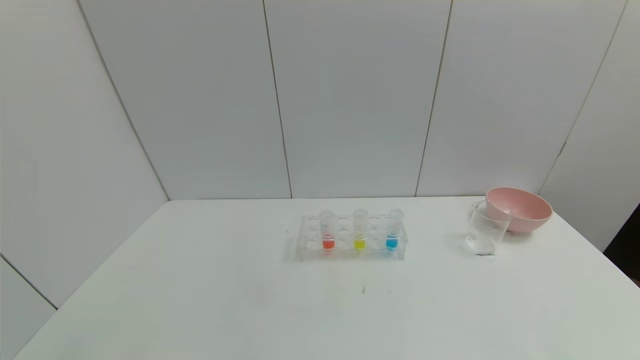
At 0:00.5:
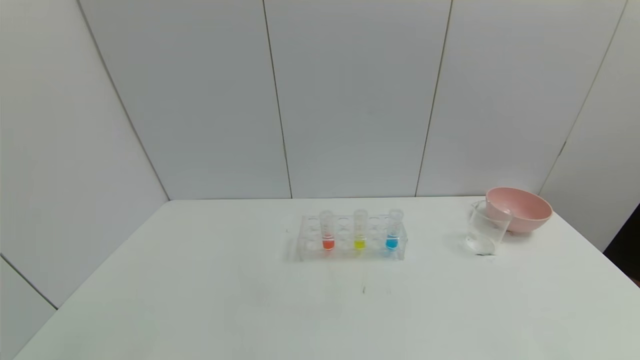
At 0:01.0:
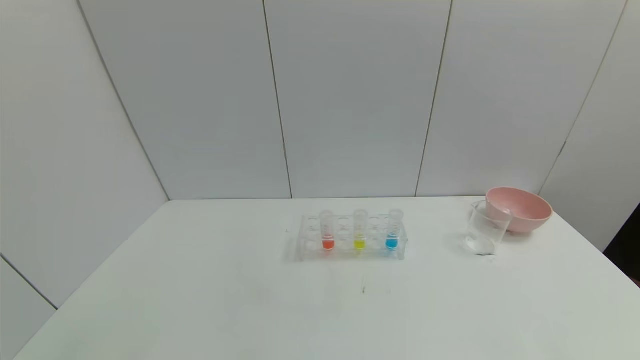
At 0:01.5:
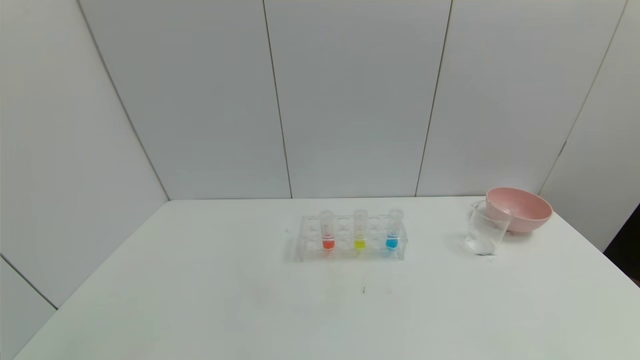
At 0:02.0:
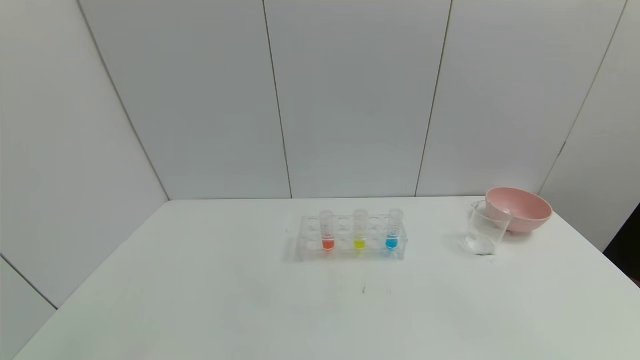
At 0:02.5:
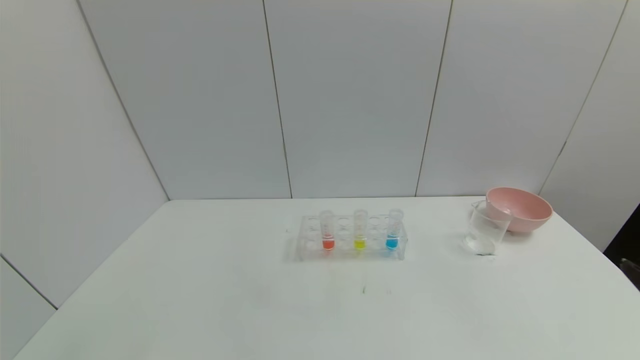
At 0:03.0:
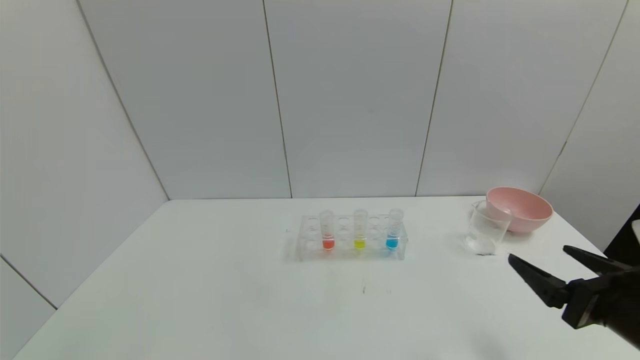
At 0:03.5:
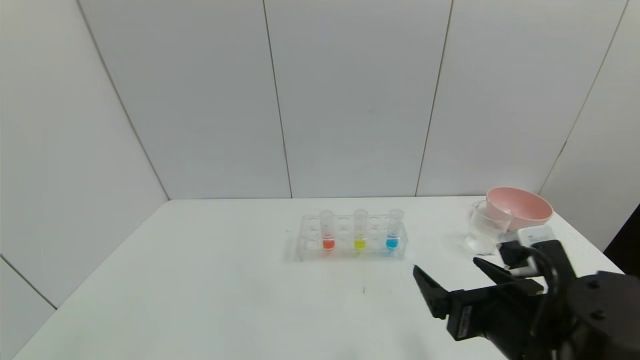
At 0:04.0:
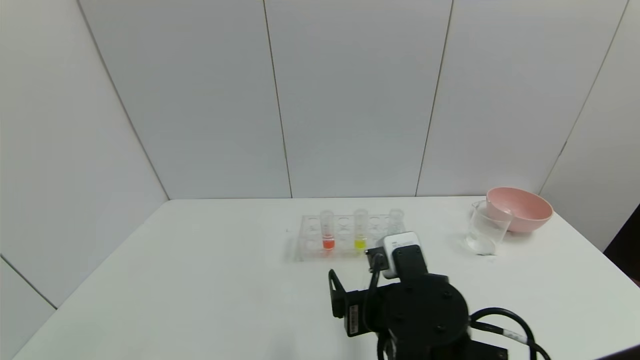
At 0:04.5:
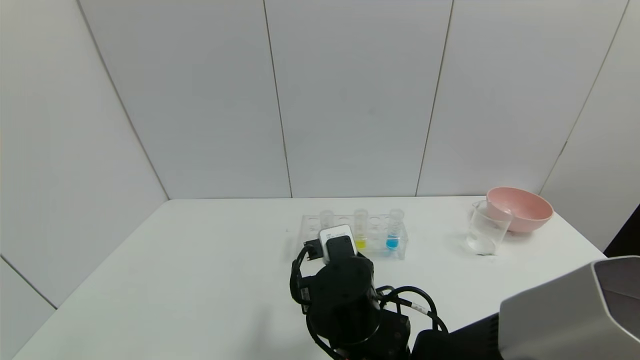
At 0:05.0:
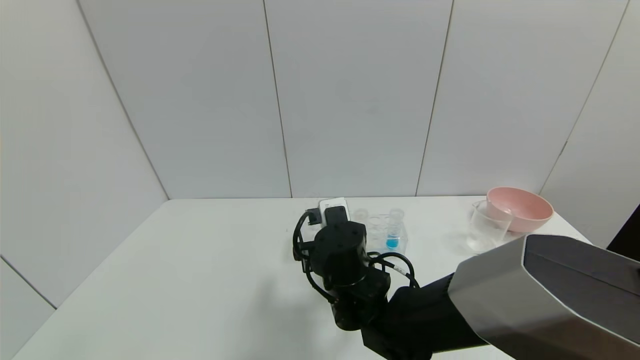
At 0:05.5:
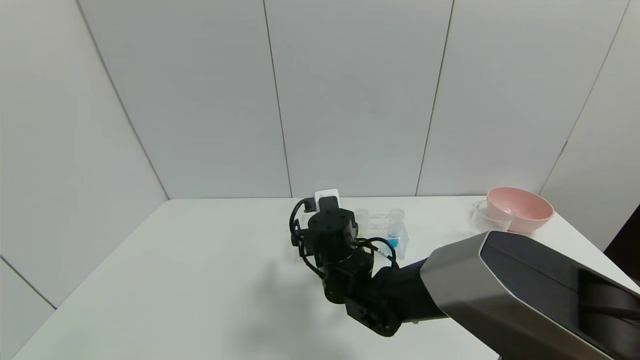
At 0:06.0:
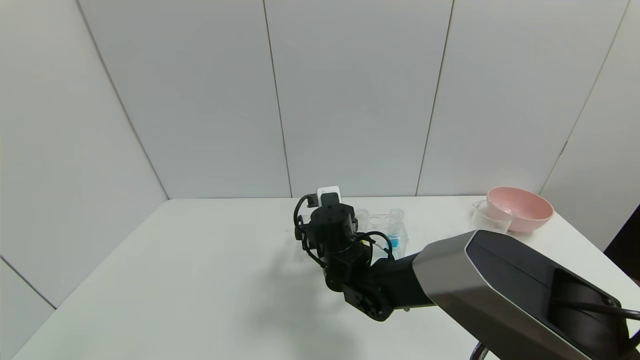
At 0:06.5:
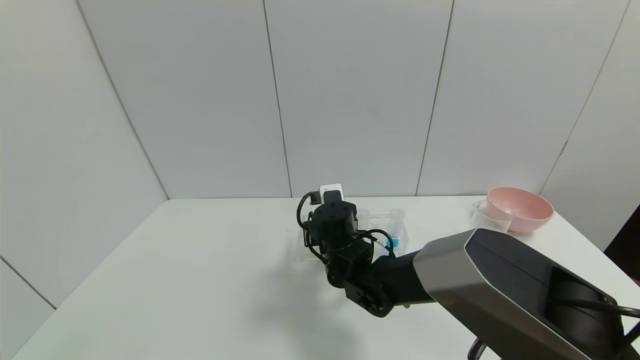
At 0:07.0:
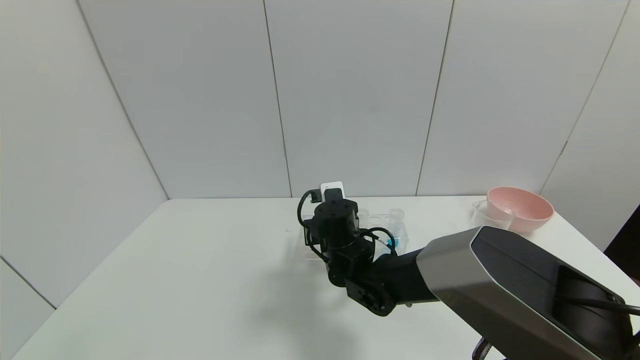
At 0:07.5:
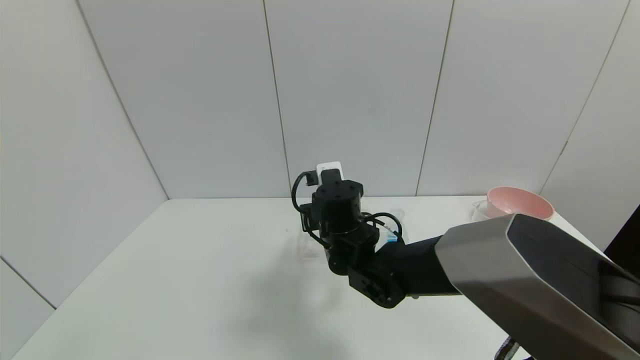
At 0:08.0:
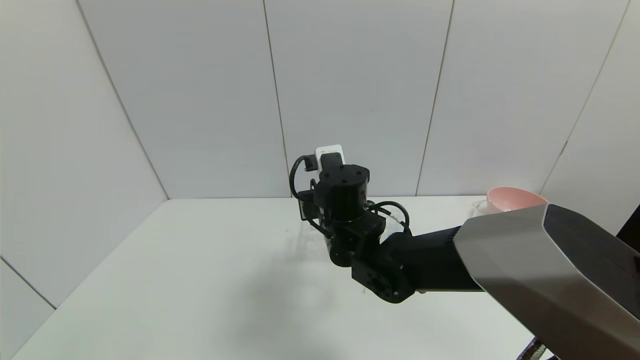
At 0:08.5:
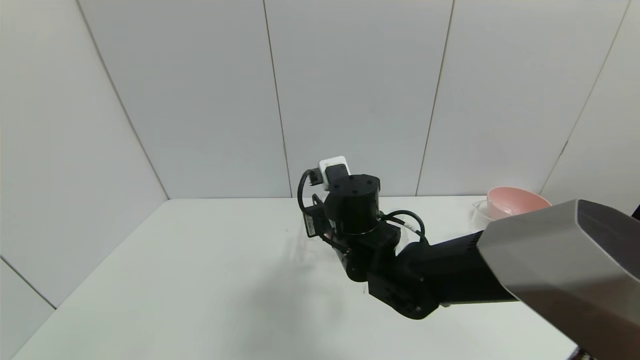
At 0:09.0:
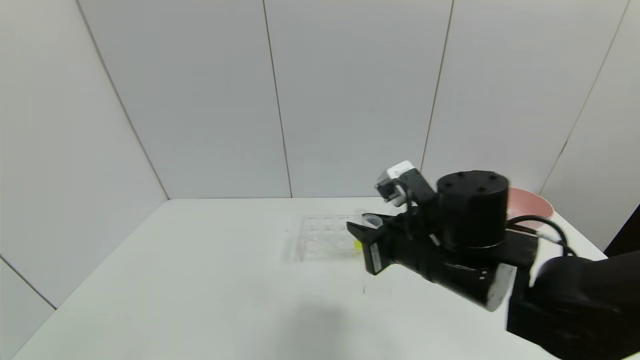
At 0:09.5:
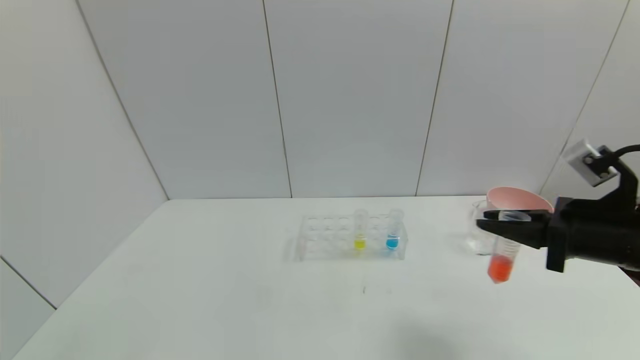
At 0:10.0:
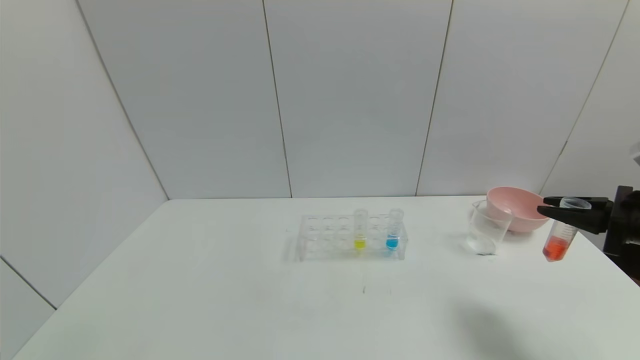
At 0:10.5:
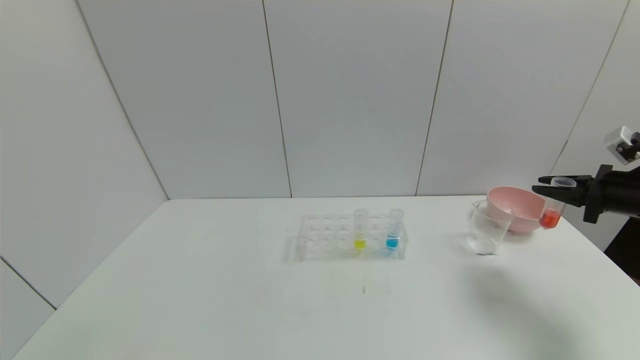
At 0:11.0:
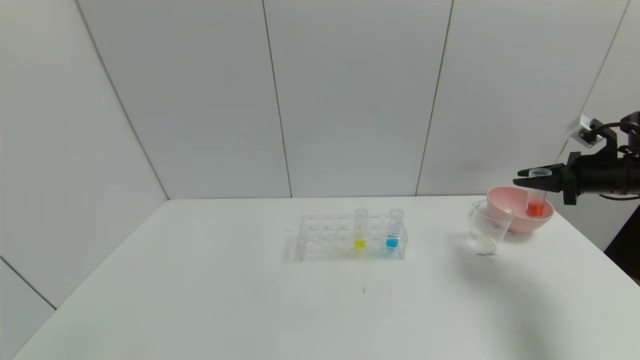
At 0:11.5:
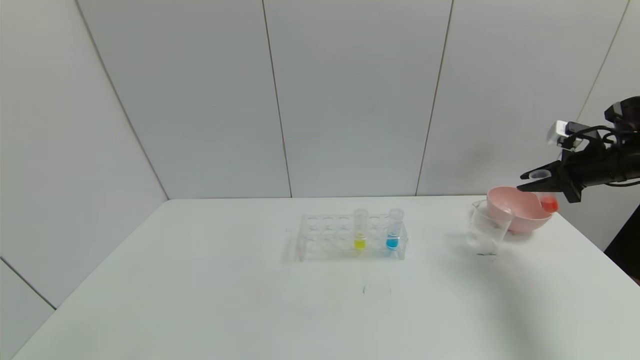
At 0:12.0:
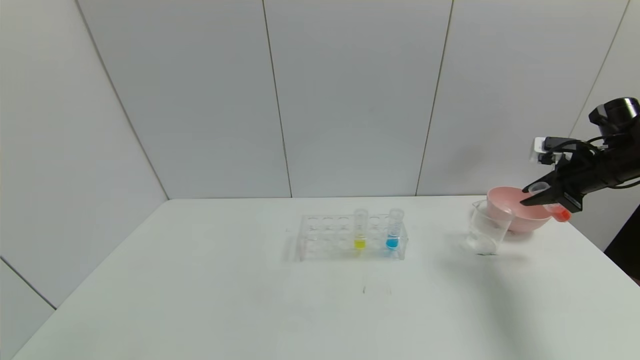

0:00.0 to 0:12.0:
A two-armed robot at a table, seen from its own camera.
Task of the whole recording: pick up the test tube with red pigment and the test tube with blue pigment by grippers and pour them into the container.
Step, 0:00.0 to 0:07.0: Grasp the red reagent with the right gripper.
0:02.0 to 0:04.0: The right gripper travels to the left and forward by some 35 cm.
0:04.0 to 0:06.0: The right gripper is displaced forward and to the left by roughly 20 cm.
0:06.0 to 0:08.0: The right gripper shifts some 10 cm upward, and closes up.
0:08.0 to 0:10.0: The right gripper moves to the right, about 40 cm.
0:10.0 to 0:12.0: The right gripper travels forward by about 15 cm.

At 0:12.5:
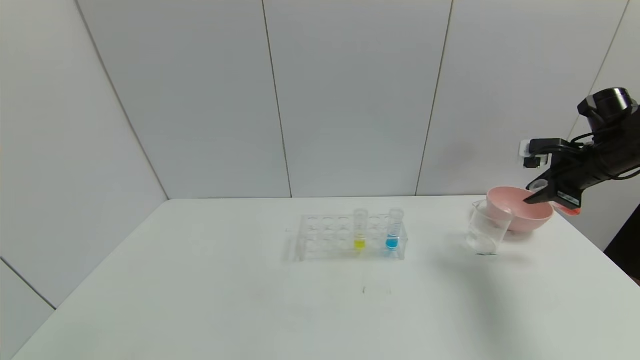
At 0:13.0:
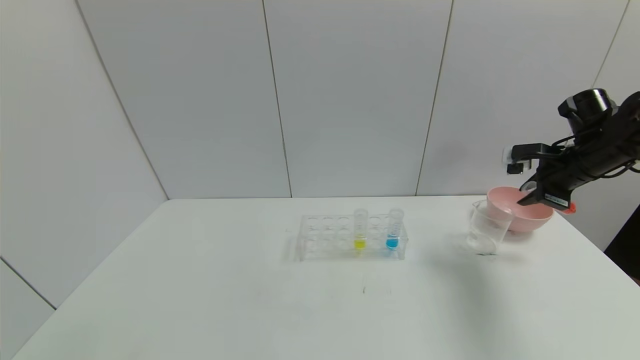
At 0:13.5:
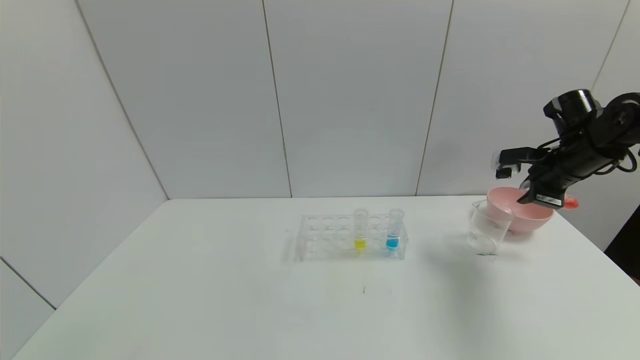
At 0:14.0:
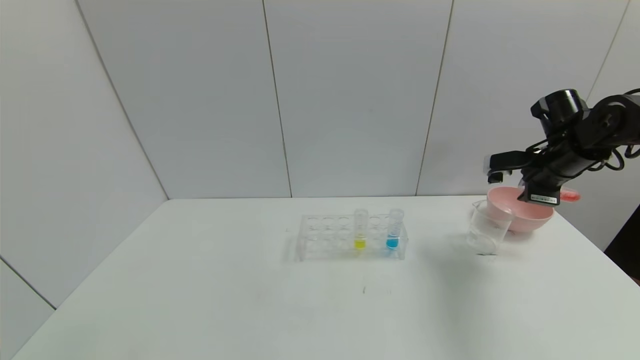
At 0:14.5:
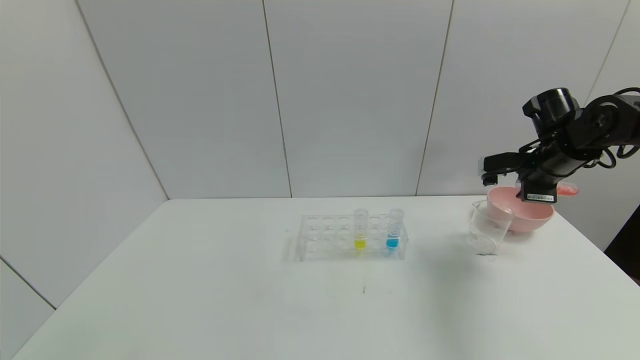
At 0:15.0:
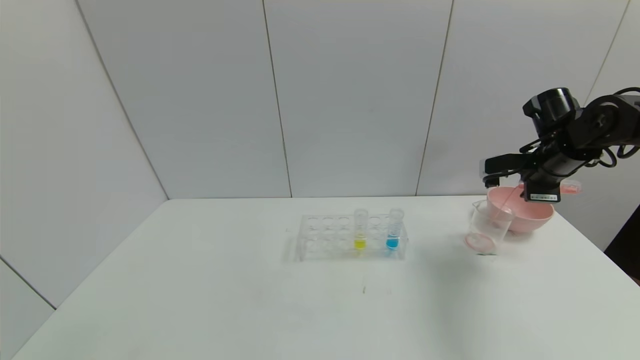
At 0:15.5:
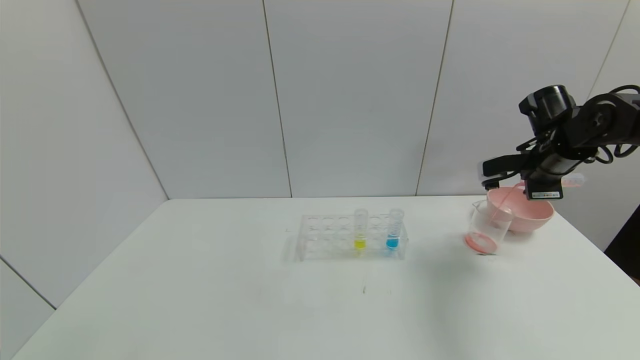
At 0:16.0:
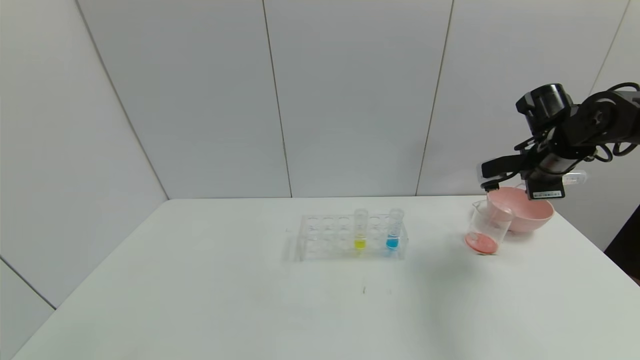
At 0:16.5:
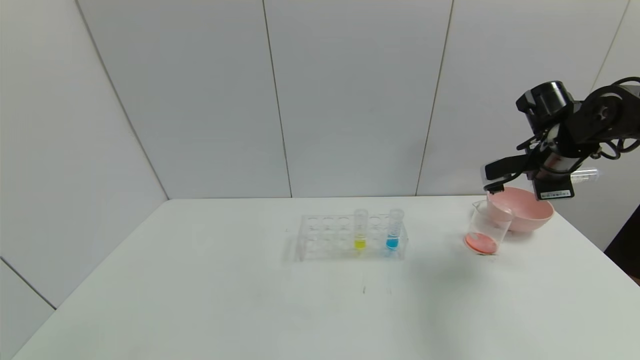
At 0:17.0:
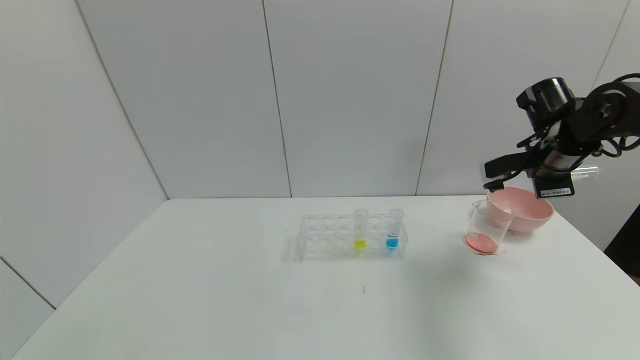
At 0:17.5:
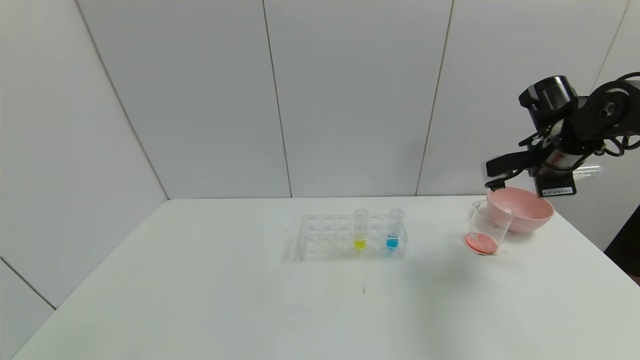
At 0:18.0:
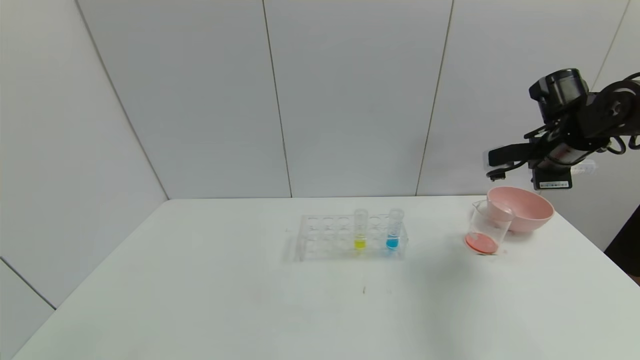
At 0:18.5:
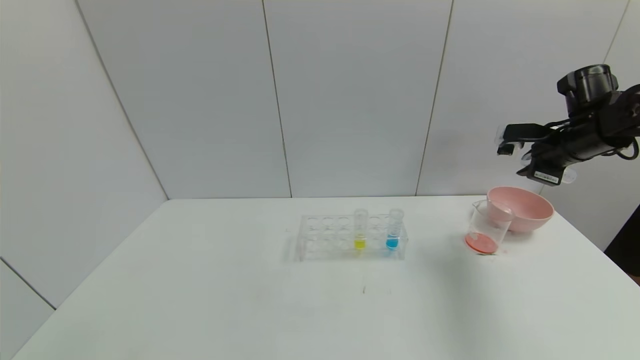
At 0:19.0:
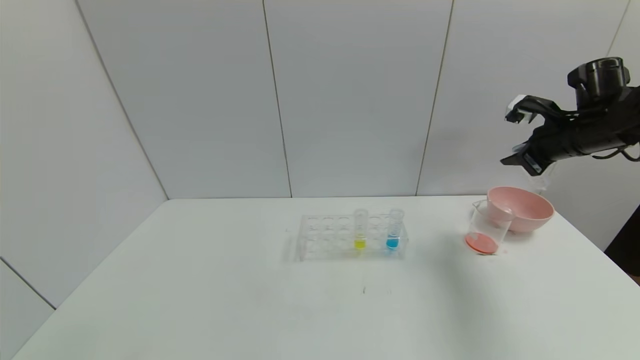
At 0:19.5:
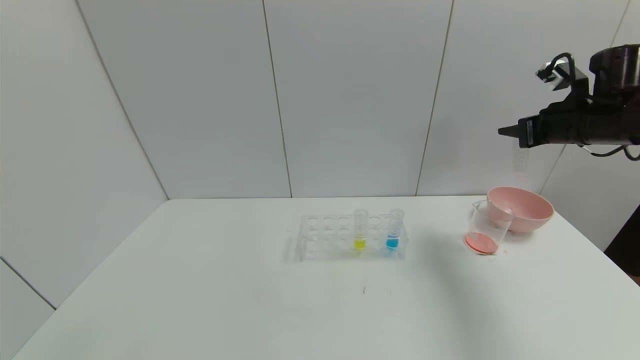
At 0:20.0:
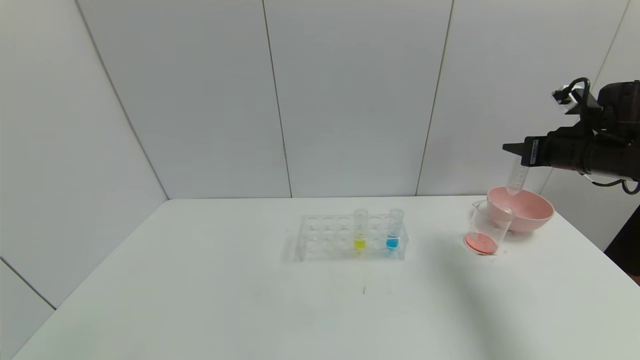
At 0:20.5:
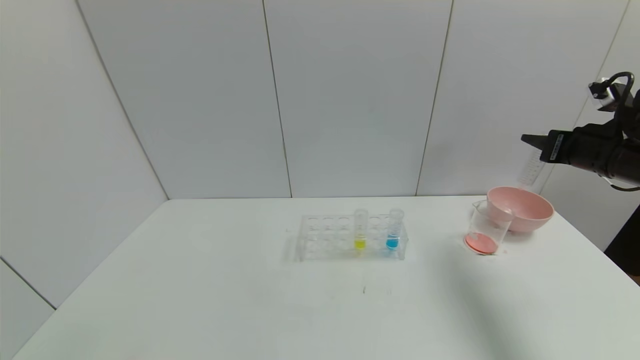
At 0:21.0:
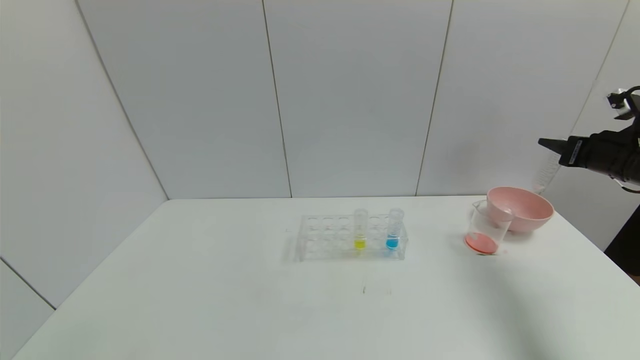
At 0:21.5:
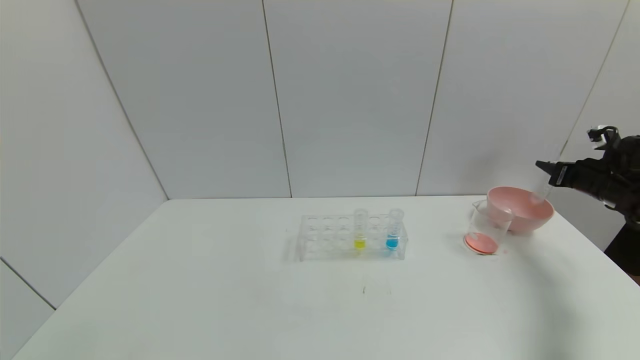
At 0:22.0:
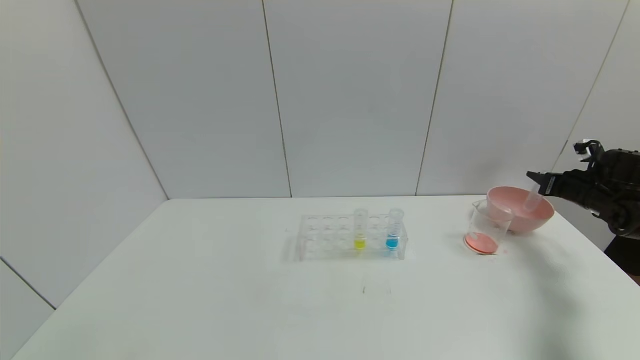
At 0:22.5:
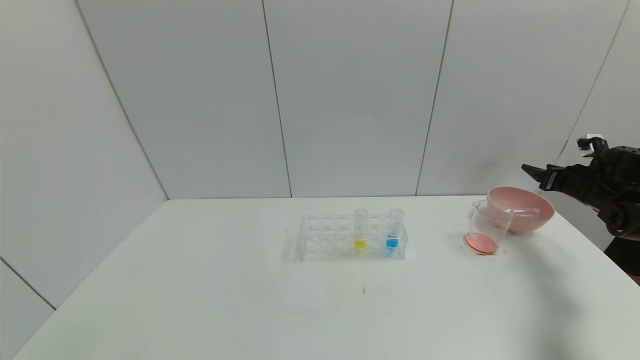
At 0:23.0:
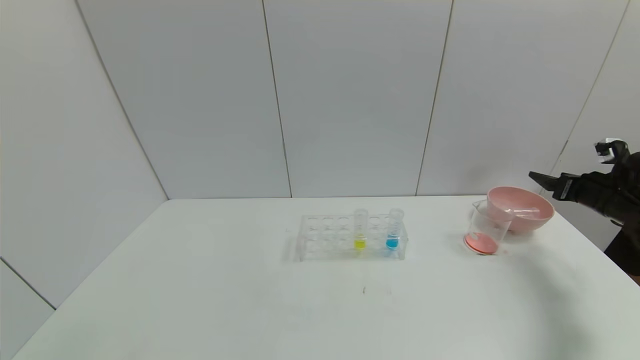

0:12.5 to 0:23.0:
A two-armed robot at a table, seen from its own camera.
Task of the whole recording: pick up the test tube with red pigment and the test tube with blue pigment by grippers and pour them into the container.
Step, 0:12.5 to 0:16.0: Pour the red reagent into the graduated cylinder with the right gripper.
Step, 0:16.5 to 0:22.0: Place the test tube into the bowl with the right gripper.
0:12.5 to 0:14.5: The right gripper goes roughly 5 cm to the left.
0:14.5 to 0:16.5: The grippers move only a little.
0:16.5 to 0:19.0: The right gripper ends up some 5 cm from where it was.
0:19.0 to 0:21.0: The right gripper is displaced to the right by roughly 5 cm.
0:21.0 to 0:23.0: The right gripper travels downward by approximately 10 cm, and opens its fingers.
